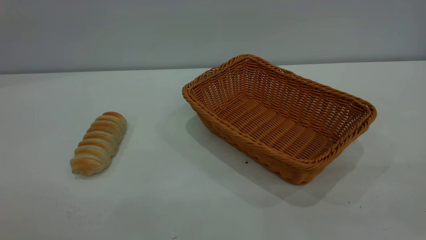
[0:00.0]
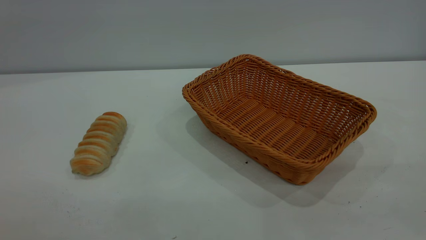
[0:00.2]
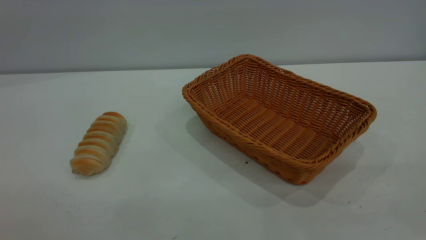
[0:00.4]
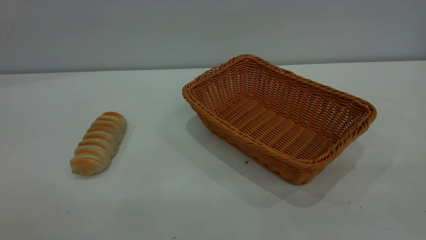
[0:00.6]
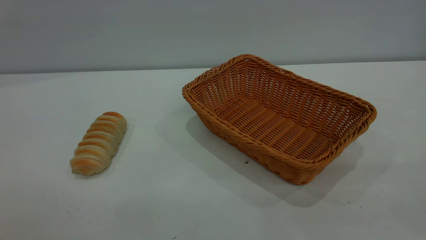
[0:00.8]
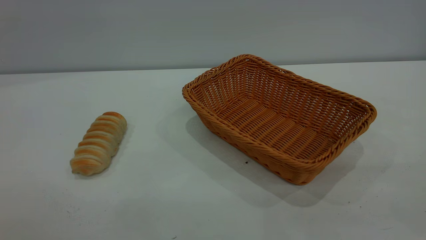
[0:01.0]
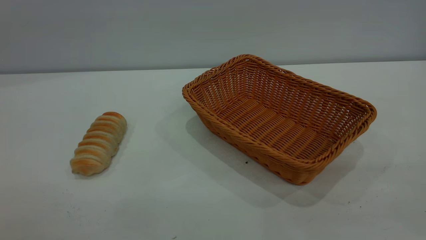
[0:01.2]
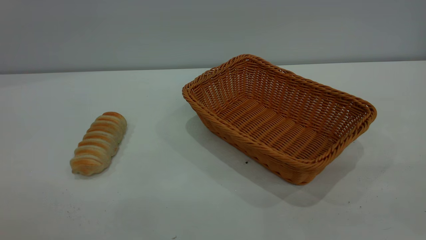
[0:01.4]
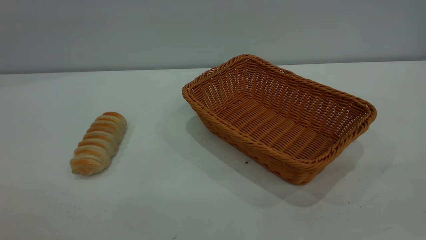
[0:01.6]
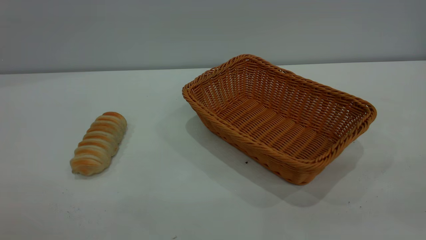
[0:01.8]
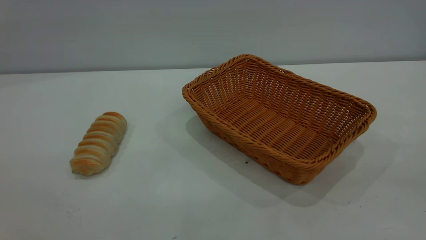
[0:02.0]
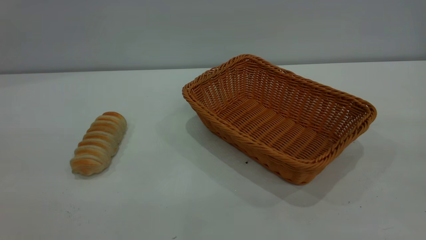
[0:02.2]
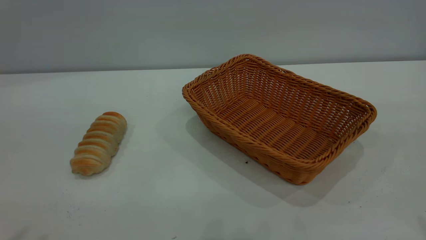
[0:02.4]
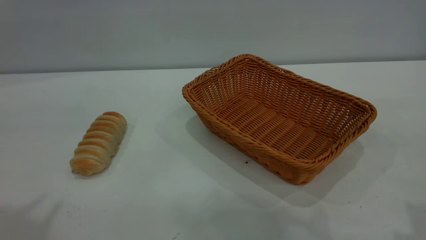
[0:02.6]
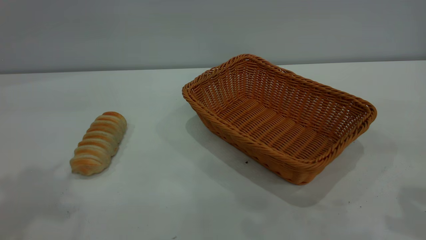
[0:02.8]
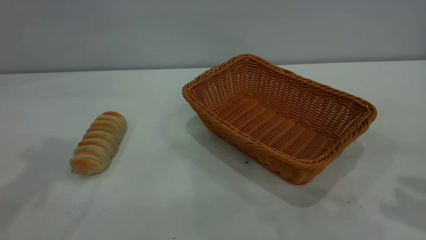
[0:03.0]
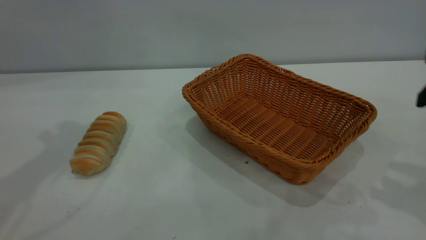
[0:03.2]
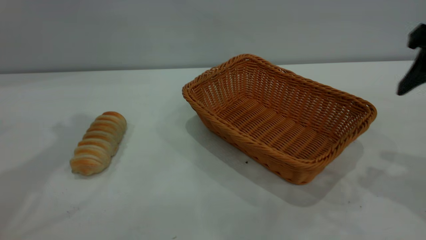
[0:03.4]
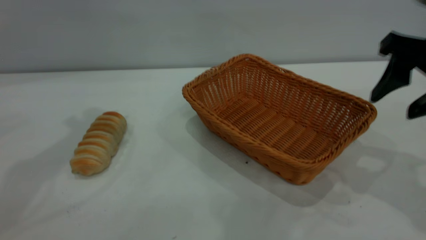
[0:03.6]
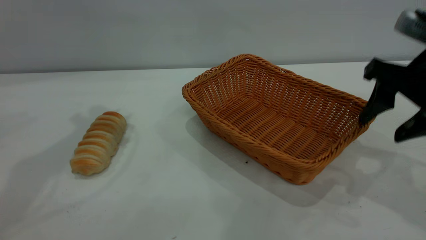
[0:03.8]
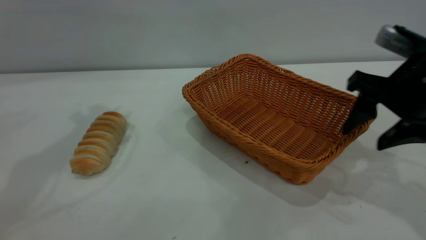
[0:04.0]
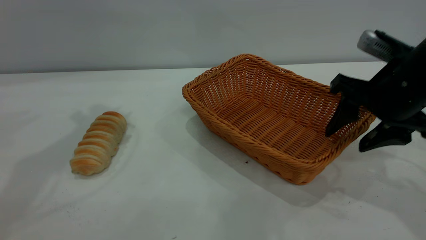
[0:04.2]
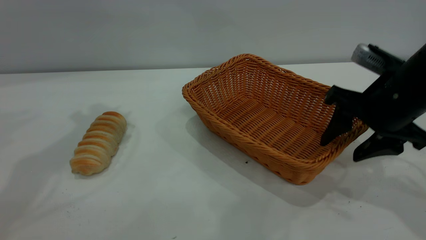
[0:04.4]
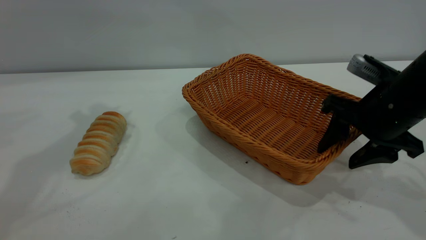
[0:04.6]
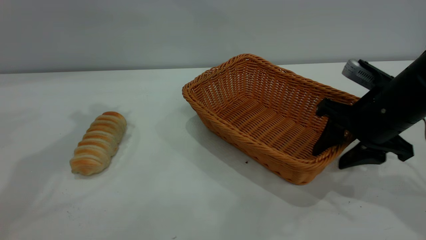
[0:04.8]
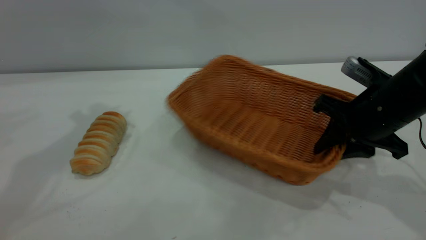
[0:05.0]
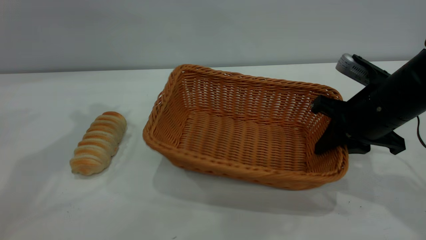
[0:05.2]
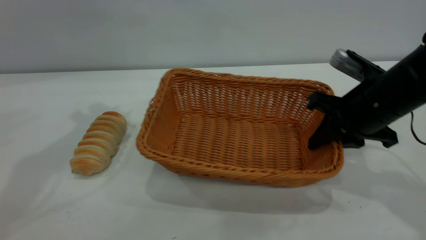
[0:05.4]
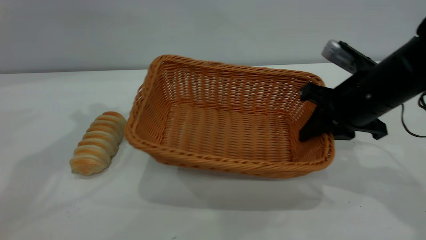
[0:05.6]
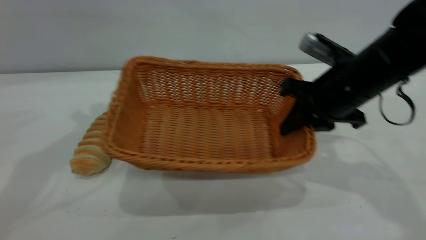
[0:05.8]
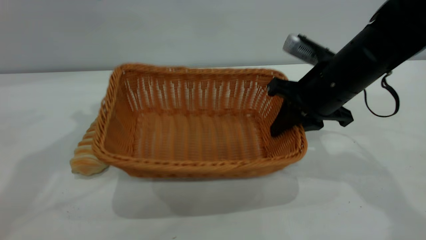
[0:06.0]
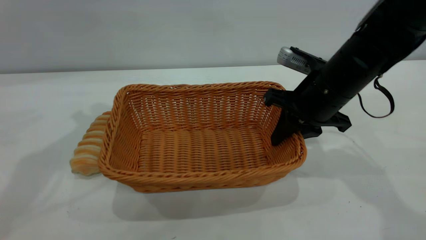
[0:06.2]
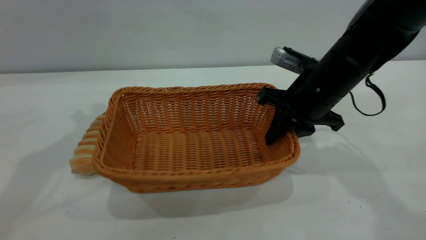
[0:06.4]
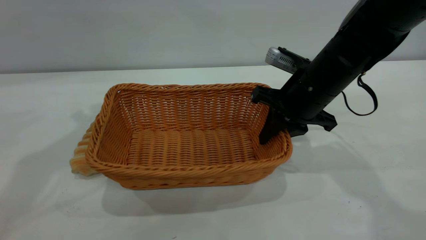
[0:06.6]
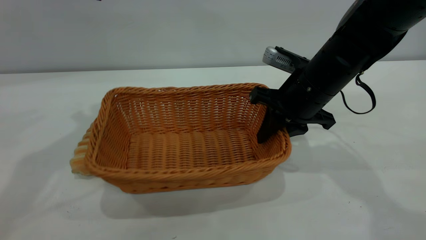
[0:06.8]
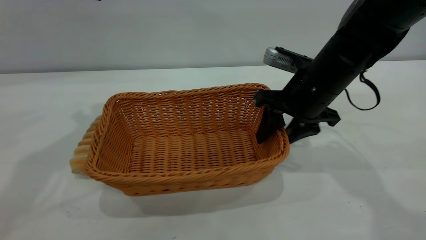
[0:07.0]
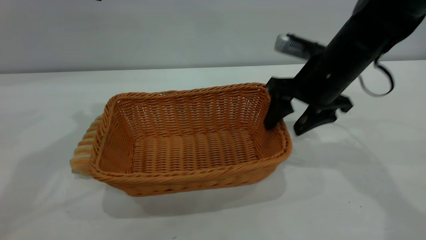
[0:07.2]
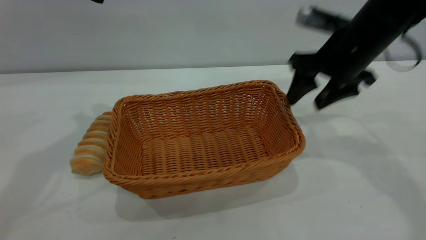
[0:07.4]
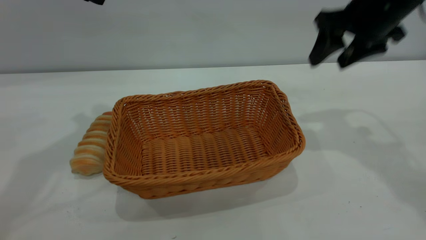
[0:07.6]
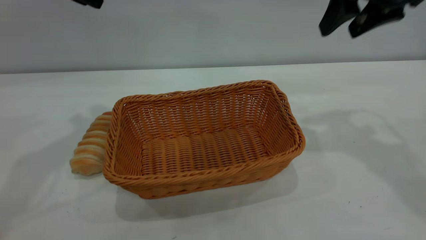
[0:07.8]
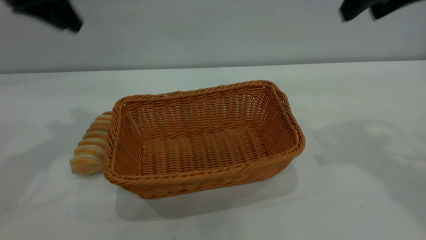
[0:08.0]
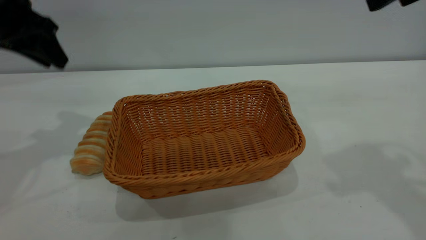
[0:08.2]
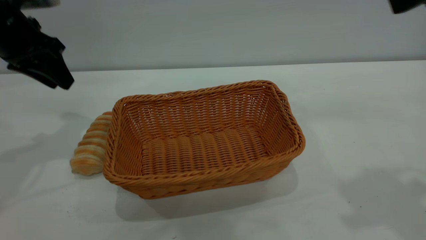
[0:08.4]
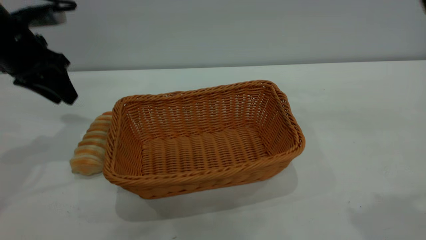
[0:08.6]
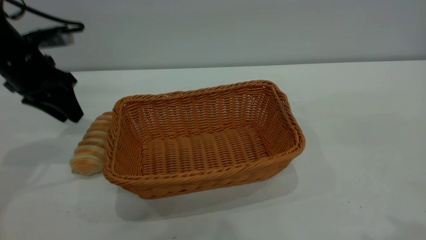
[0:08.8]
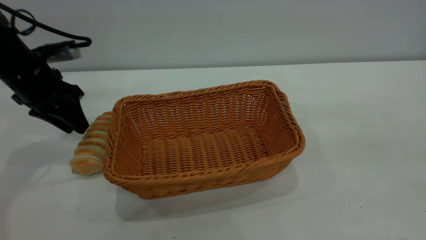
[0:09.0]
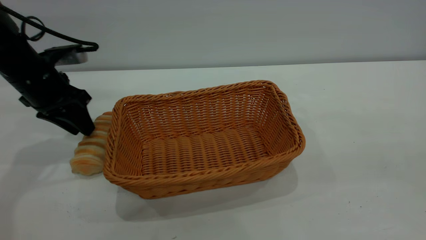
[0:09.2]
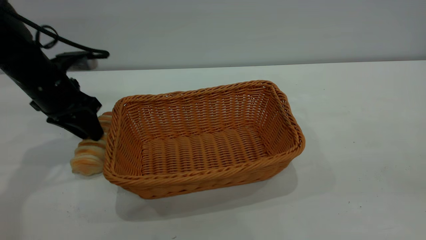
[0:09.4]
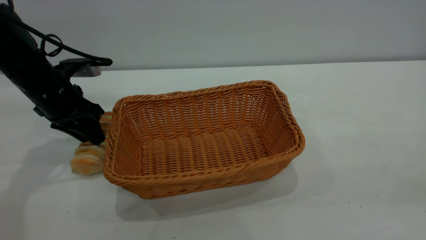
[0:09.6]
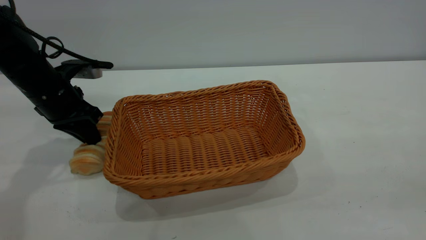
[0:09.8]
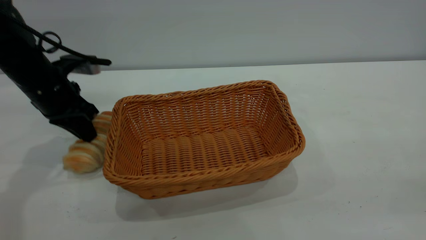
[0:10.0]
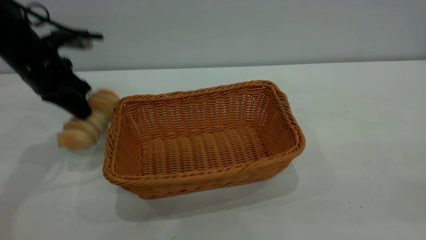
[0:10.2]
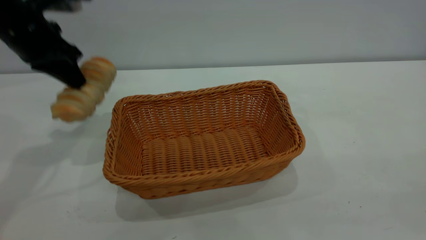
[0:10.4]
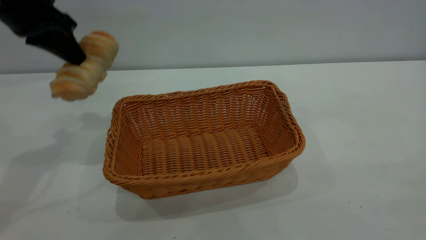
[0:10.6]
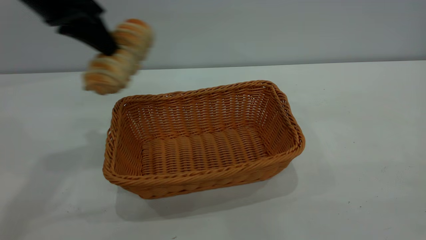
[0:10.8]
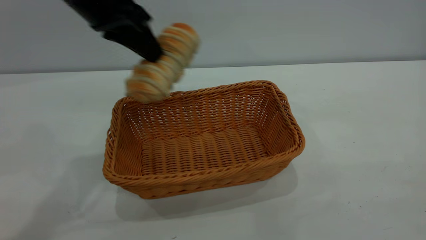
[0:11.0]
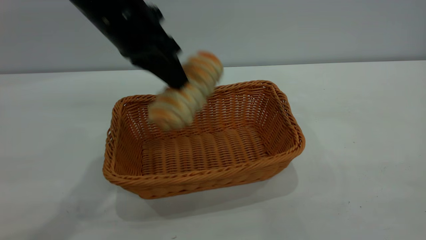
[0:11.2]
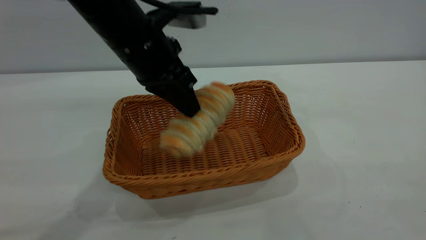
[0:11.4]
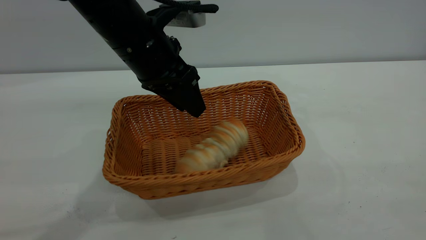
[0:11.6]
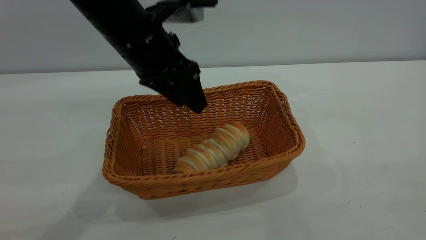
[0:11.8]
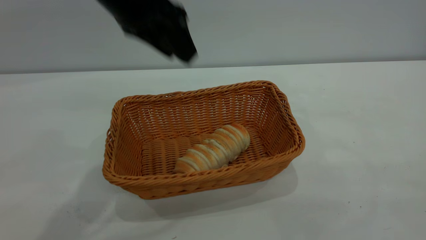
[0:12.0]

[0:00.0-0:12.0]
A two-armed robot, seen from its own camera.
Task of the whole recording: One hand grasps the yellow basket and places it in the middle of the table, while the other hand picks up the long bread and puts it into the yellow basket.
Step, 0:00.0 to 0:07.4: Move the basket to the center of view.
Step, 0:10.4 to 0:11.8: place the bread into the basket.
0:00.0 to 0:01.6: Both grippers stay about where they are.
0:03.0 to 0:04.4: The right gripper shifts roughly 15 cm downward, forward and to the left.
0:04.4 to 0:06.0: The right gripper heads to the left and forward, covering about 10 cm, and closes up.
0:06.0 to 0:07.6: The right gripper travels upward and to the right by approximately 15 cm, and opens its fingers.
0:07.6 to 0:09.0: The left gripper heads downward, covering some 15 cm, while the right gripper goes roughly 30 cm backward.
0:09.0 to 0:10.4: The left gripper travels upward by about 10 cm, and closes up.
0:10.4 to 0:12.0: The left gripper goes about 15 cm to the right, and opens up.
